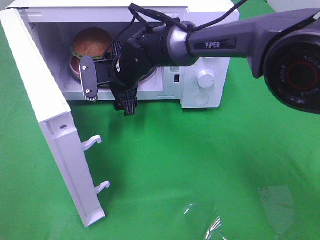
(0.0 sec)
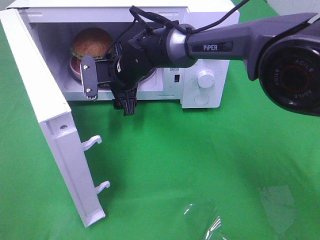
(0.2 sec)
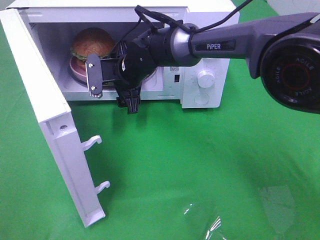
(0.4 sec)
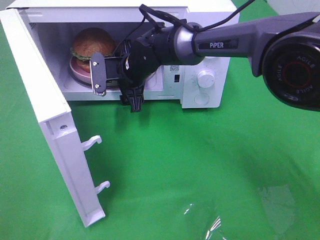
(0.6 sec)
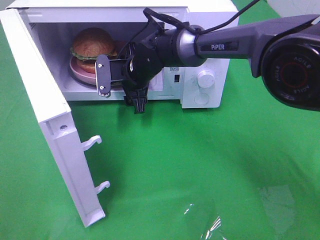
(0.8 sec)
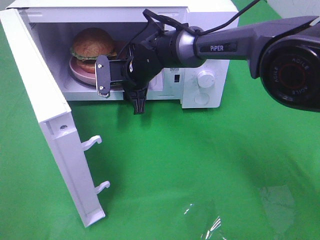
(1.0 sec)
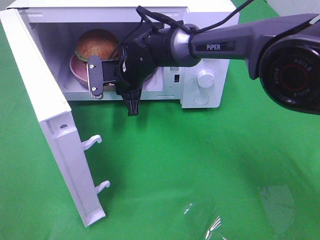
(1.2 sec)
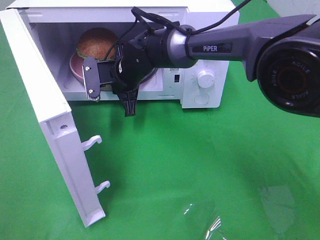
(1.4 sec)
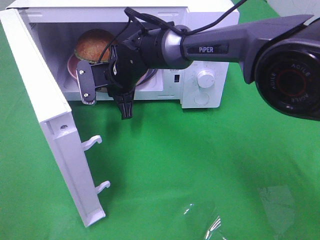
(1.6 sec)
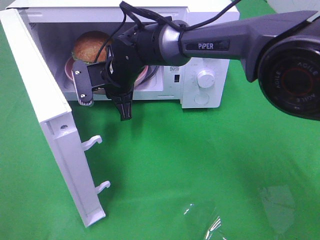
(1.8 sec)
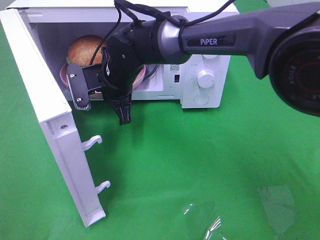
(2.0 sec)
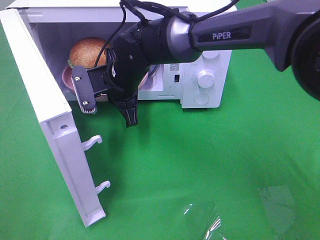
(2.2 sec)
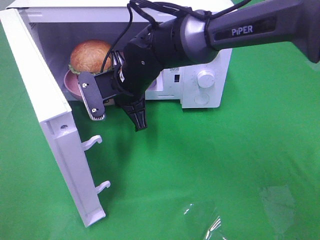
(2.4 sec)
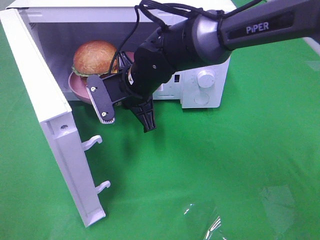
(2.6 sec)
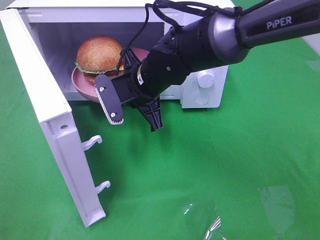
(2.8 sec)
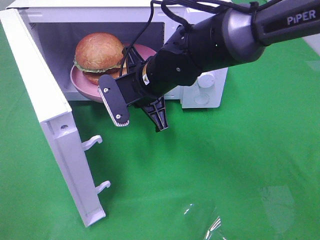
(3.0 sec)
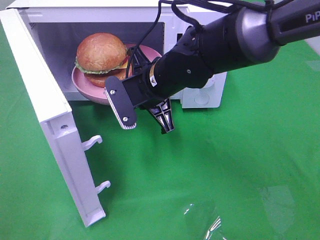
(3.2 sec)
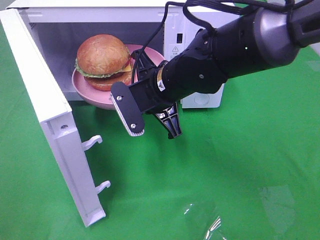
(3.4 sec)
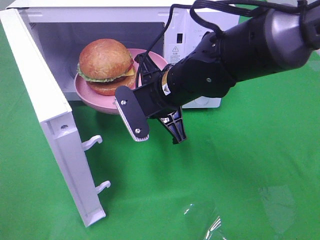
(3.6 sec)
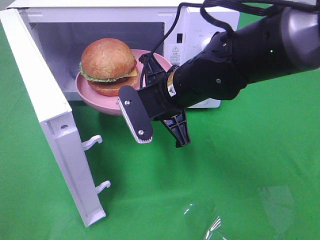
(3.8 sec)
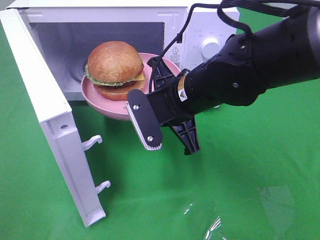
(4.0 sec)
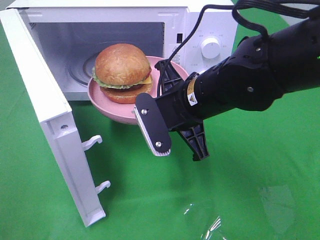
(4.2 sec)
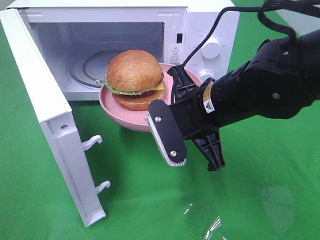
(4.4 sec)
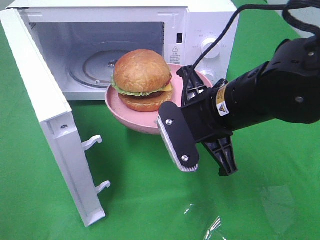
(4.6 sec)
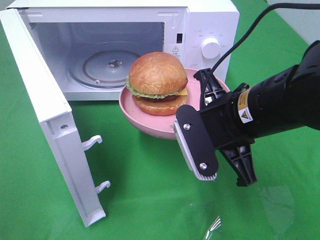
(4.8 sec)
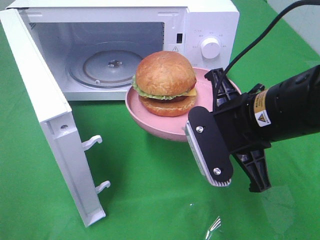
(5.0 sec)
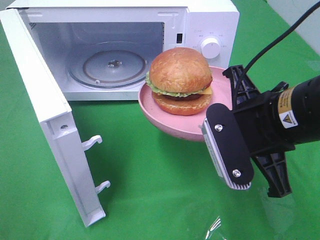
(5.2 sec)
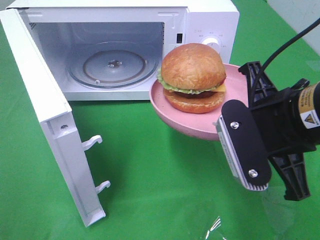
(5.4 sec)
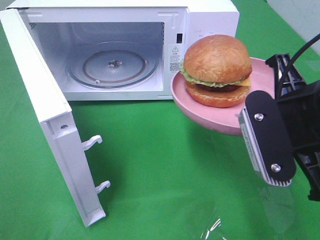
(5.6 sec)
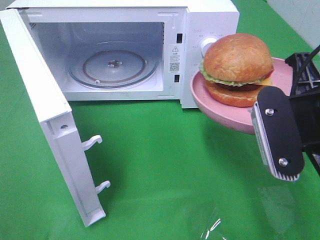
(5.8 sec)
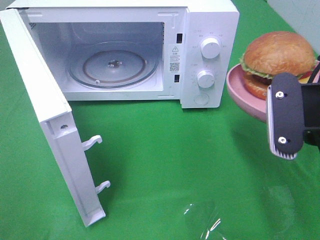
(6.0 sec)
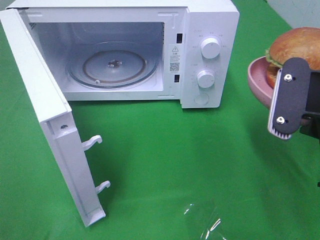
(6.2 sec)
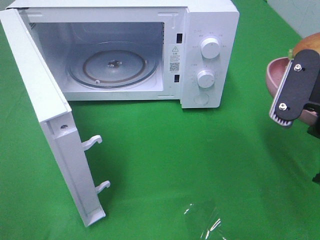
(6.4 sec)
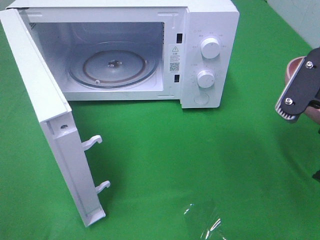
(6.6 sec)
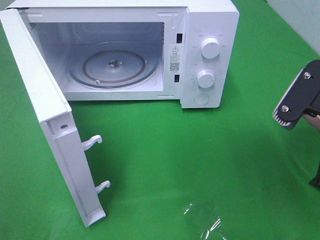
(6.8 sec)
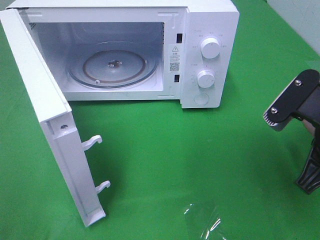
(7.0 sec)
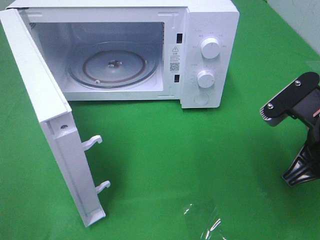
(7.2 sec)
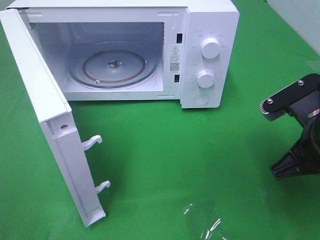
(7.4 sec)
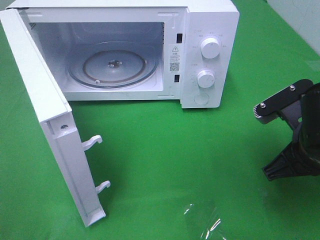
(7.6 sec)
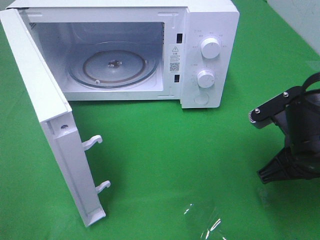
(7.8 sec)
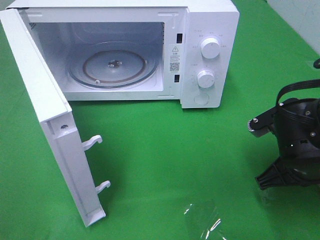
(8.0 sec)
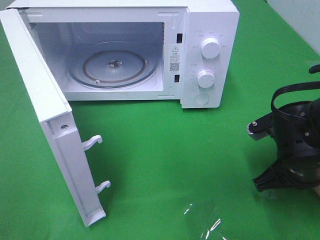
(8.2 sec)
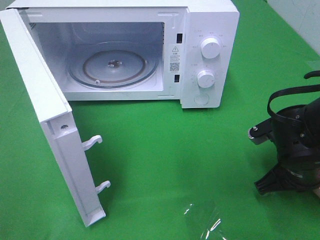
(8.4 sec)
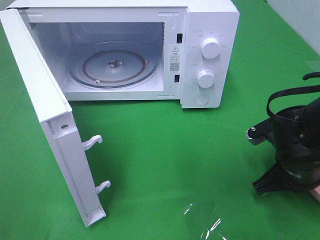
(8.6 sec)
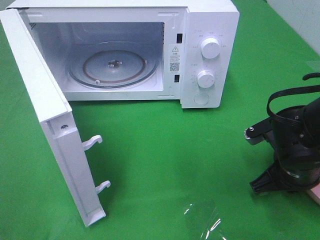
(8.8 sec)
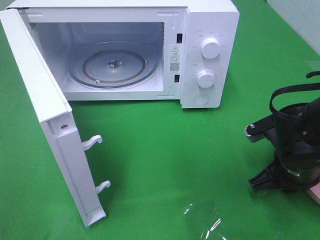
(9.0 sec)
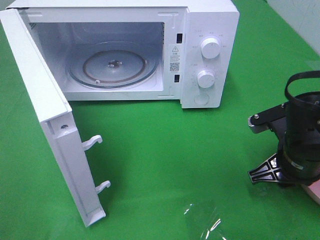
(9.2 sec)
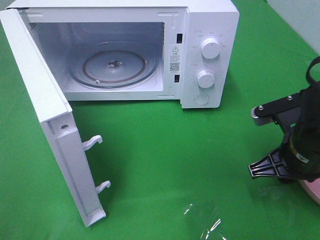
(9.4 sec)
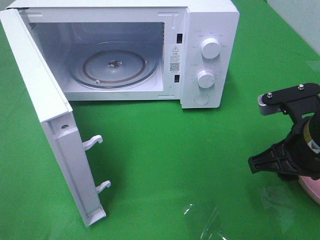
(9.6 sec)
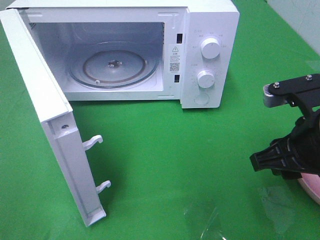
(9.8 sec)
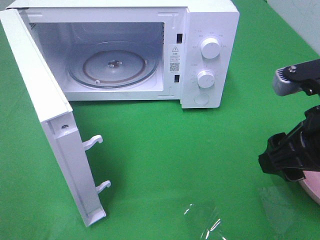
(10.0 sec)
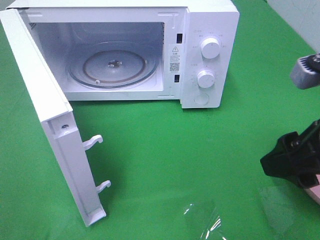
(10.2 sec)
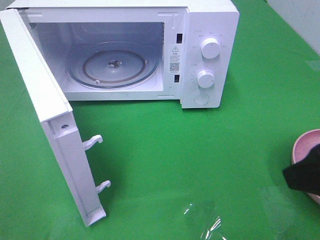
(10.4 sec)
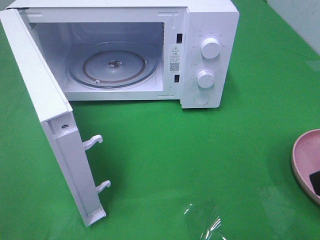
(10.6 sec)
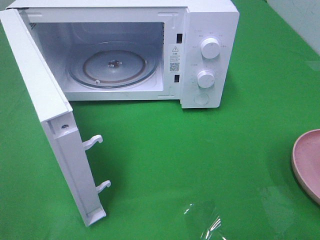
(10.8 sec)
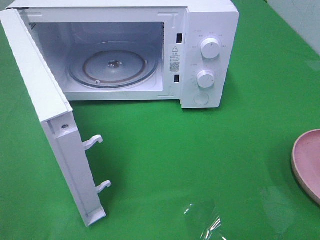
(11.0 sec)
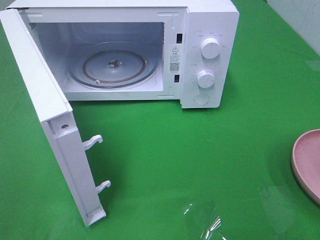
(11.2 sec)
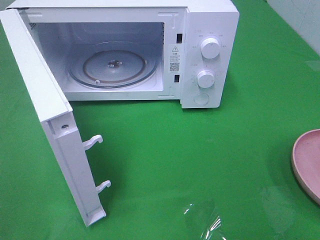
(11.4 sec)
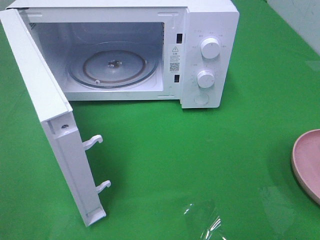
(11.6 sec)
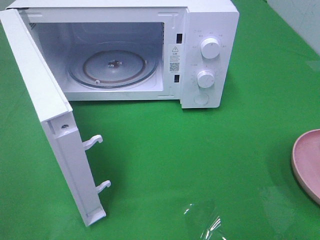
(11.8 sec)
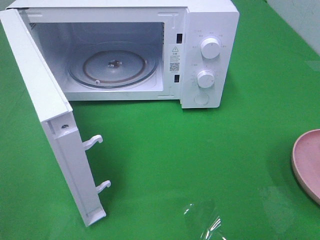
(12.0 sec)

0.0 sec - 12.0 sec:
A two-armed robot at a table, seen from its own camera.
Task of the whole recording: Heat the burger.
Step, 1.8 sec - 9.4 sec: Right hand: place the plate on the table.
0.0 sec - 1.6 sec: The right gripper closes.
1.6 sec - 3.0 sec: The right gripper travels backward and to the right by some 10 cm.
3.0 sec - 4.4 sec: The right gripper travels backward and to the right by approximately 10 cm.
4.4 sec - 6.0 sec: The right gripper travels to the right, backward and upward by roughly 15 cm.
6.0 sec - 7.6 sec: The right gripper shifts about 10 cm downward.
7.6 sec - 9.0 sec: The right gripper goes roughly 5 cm downward, and opens its fingers.
9.0 sec - 10.4 sec: The right gripper is displaced upward and backward by about 20 cm, and opens its fingers.
10.4 sec - 12.0 sec: The right gripper travels backward and to the right by roughly 15 cm.

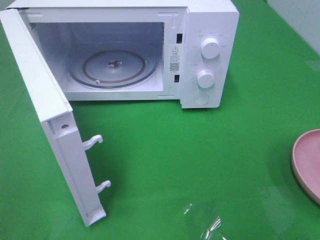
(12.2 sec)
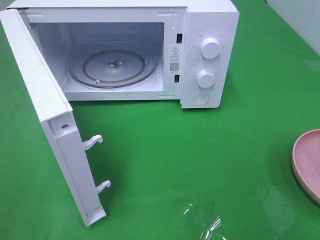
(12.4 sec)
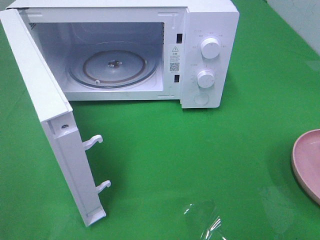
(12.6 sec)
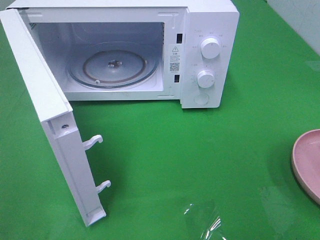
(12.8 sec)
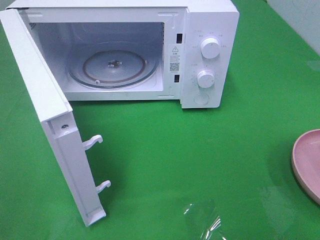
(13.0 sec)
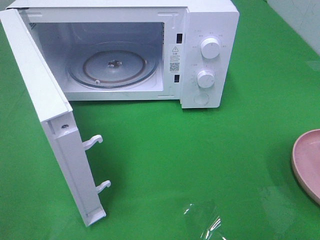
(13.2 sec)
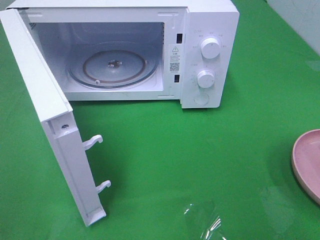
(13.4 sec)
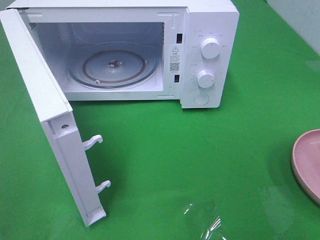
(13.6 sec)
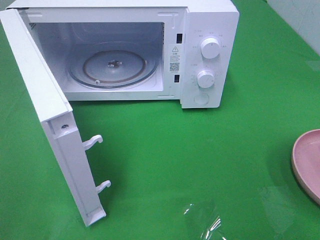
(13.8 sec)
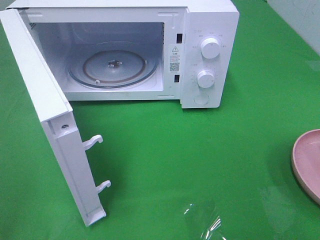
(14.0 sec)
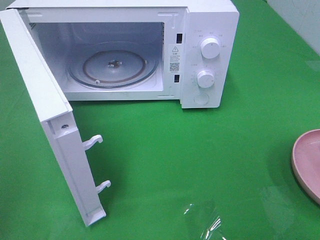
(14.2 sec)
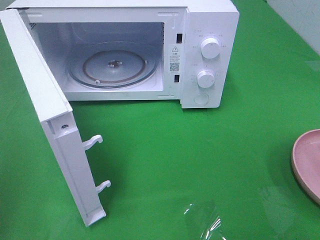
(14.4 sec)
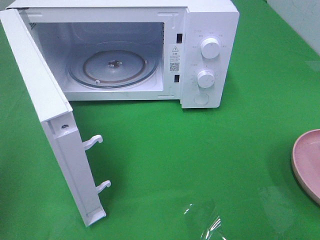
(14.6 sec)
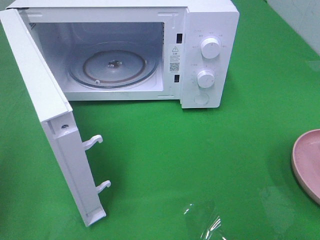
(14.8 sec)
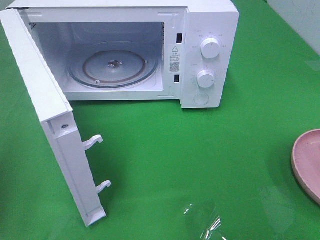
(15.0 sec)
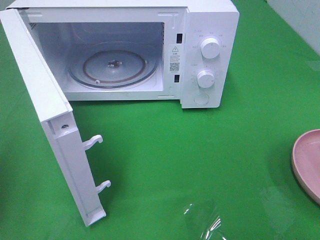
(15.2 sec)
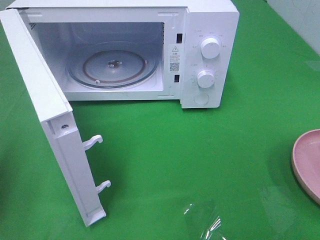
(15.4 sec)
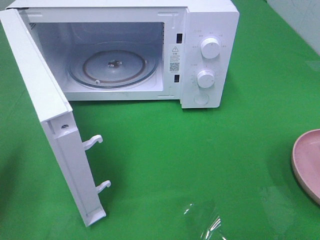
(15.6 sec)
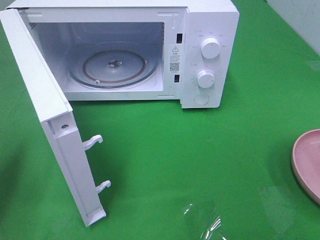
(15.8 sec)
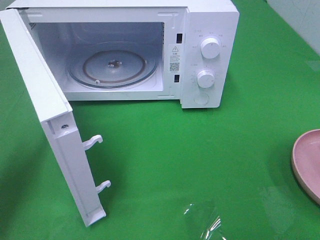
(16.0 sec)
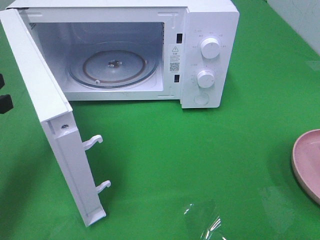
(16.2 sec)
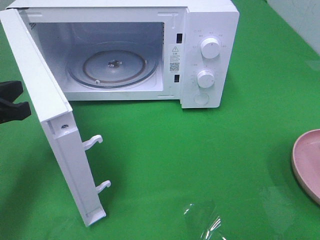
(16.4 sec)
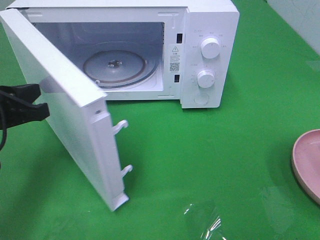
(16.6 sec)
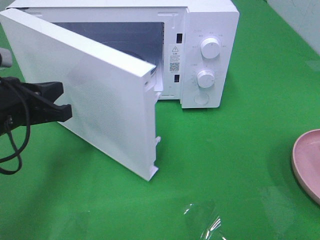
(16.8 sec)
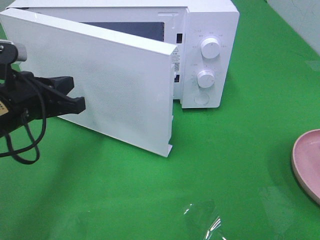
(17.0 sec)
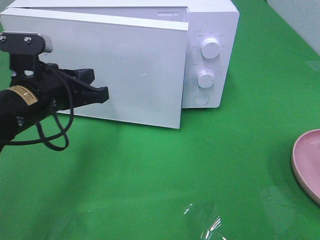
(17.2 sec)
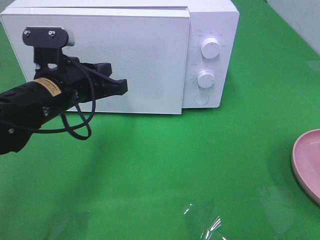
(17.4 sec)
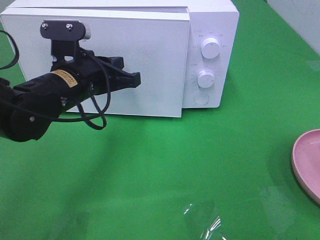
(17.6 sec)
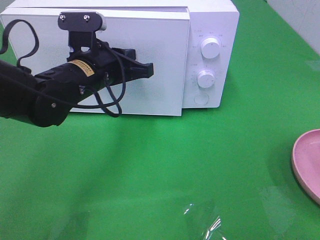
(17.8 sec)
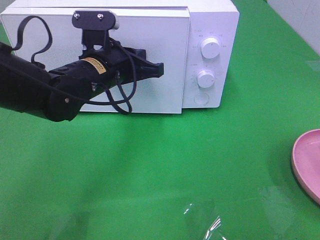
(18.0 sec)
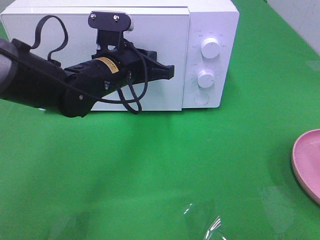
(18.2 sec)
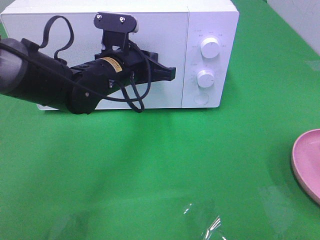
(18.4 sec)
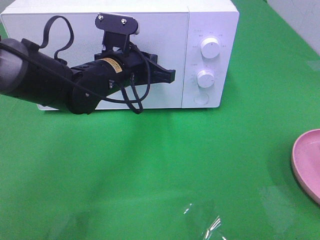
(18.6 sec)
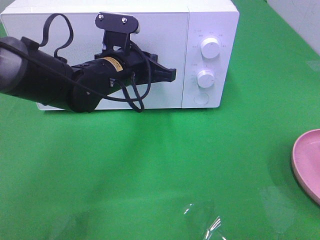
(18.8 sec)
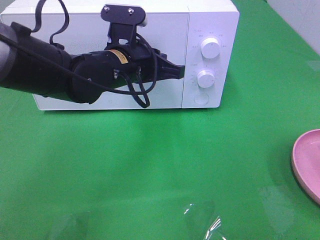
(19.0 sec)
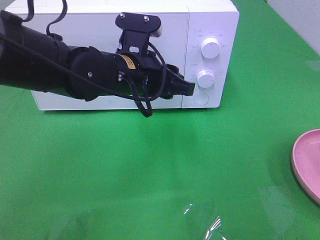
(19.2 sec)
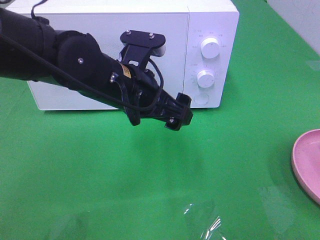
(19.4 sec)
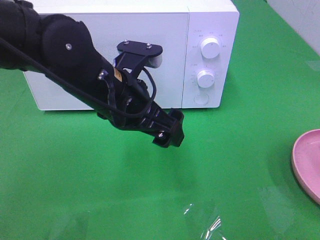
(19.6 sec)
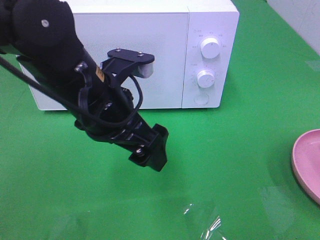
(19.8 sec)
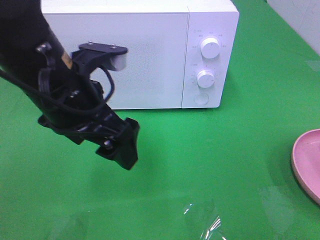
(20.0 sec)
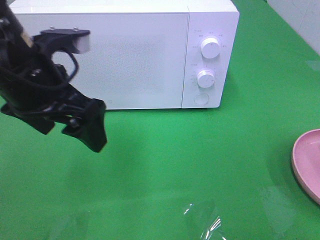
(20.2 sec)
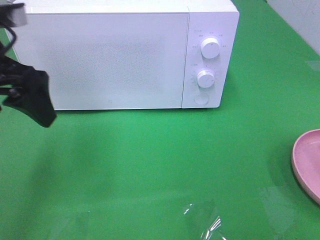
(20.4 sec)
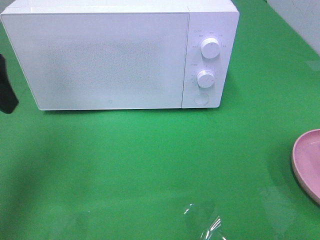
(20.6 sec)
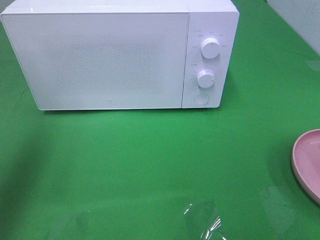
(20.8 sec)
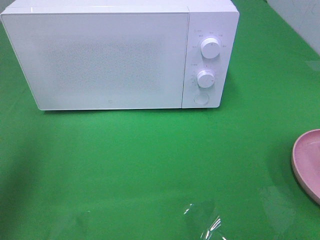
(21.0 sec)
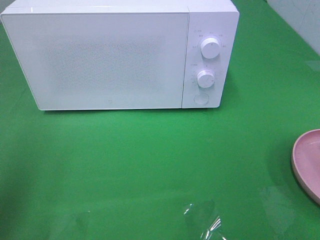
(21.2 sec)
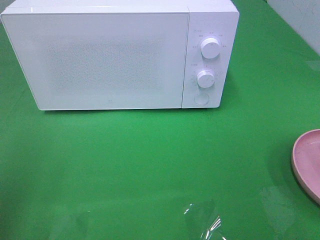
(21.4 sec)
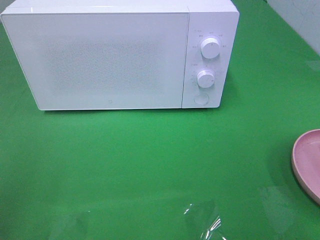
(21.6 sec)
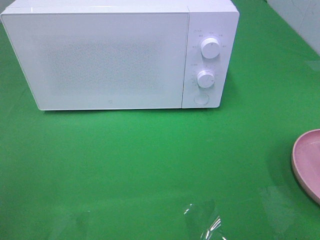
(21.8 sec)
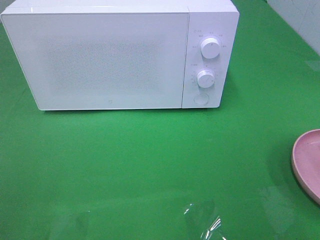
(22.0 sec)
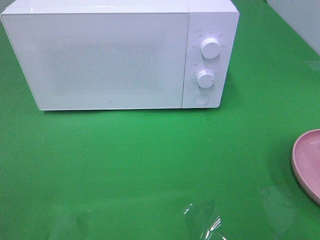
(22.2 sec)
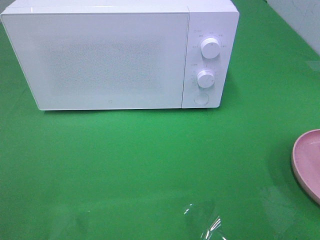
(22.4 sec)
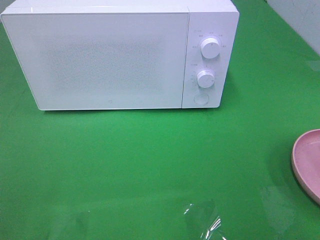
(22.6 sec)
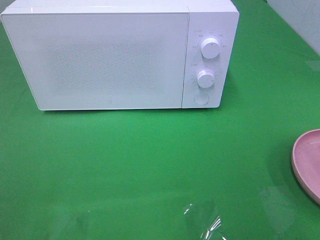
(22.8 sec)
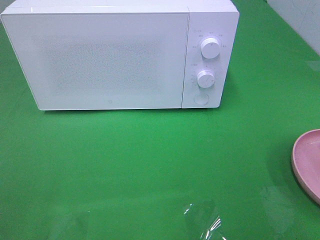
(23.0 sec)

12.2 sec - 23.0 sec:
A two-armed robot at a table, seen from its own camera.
Task of the whole recording: Heat the burger.
Step, 12.2 sec - 19.4 sec: Left hand: close the microwave door.
12.2 sec - 13.8 sec: Both grippers stay about where they are.
15.2 sec - 16.8 sec: The left gripper heads to the right, forward and downward, covering some 15 cm.
16.8 sec - 18.4 sec: The left gripper goes approximately 20 cm to the right and forward.
18.4 sec - 20.0 sec: The left gripper travels backward and upward by approximately 15 cm, and opens.
20.0 sec - 21.4 sec: The left gripper is displaced to the left and backward by some 25 cm.
